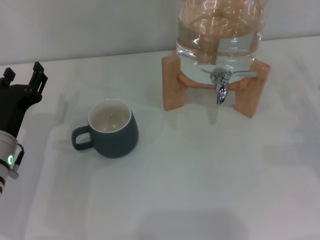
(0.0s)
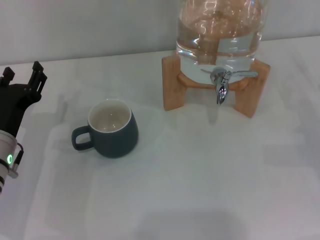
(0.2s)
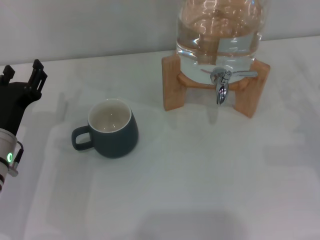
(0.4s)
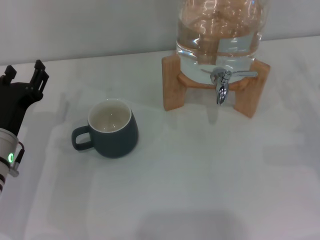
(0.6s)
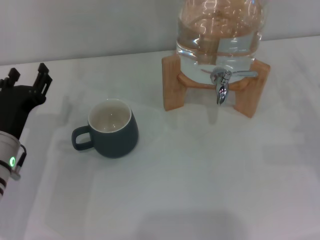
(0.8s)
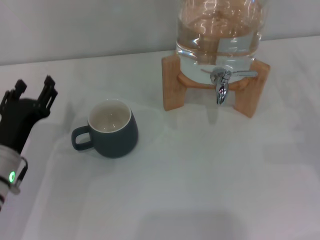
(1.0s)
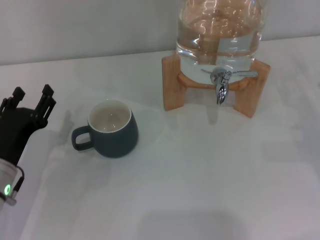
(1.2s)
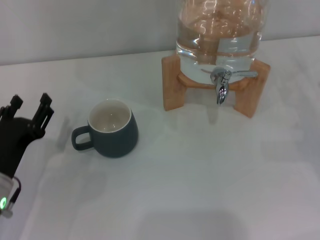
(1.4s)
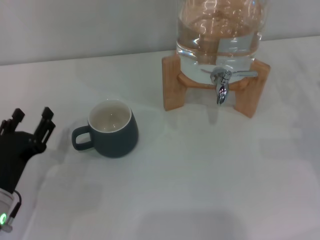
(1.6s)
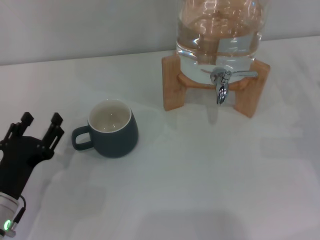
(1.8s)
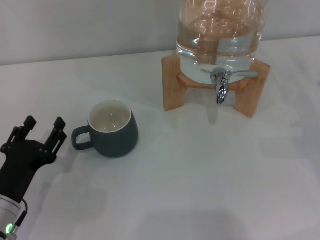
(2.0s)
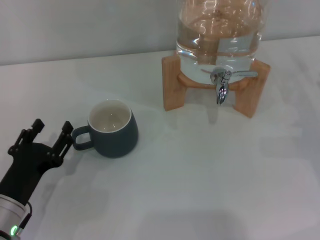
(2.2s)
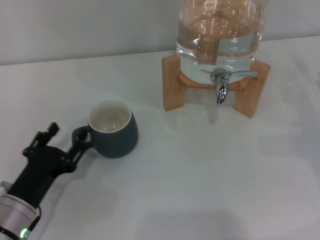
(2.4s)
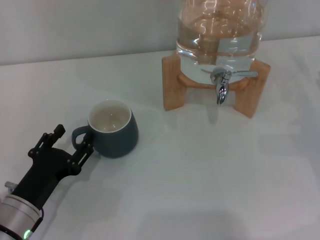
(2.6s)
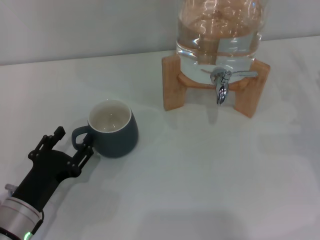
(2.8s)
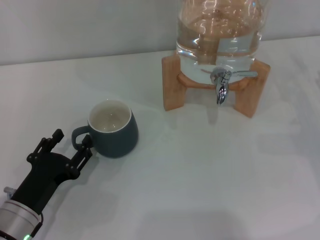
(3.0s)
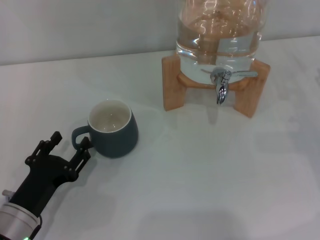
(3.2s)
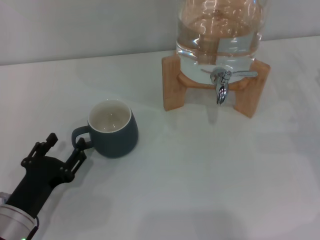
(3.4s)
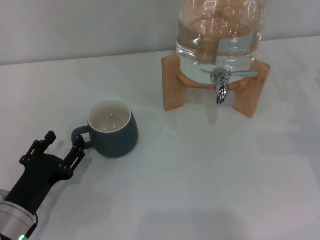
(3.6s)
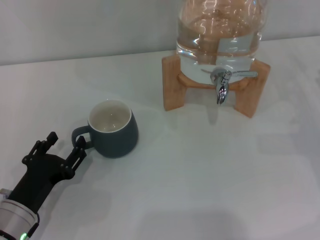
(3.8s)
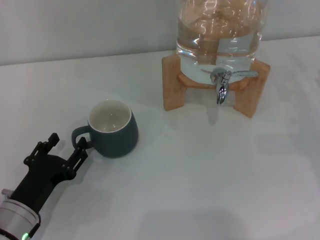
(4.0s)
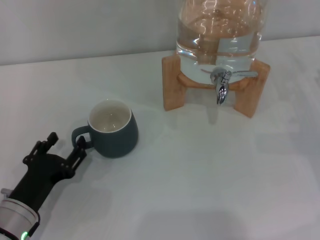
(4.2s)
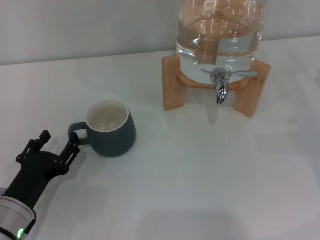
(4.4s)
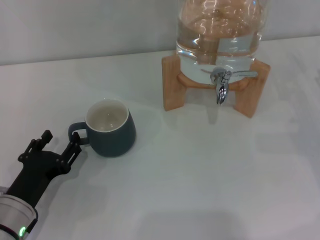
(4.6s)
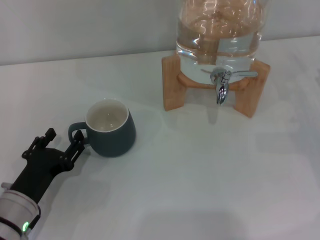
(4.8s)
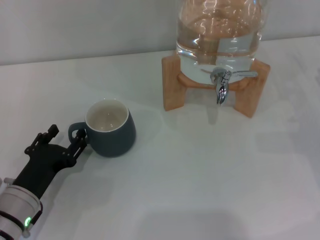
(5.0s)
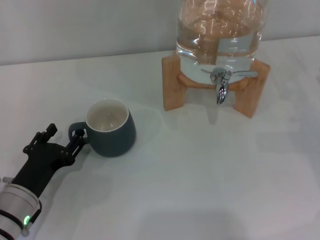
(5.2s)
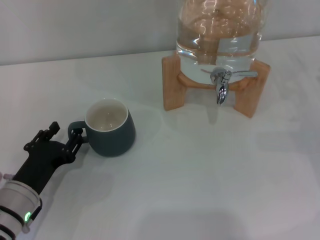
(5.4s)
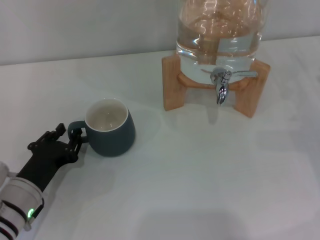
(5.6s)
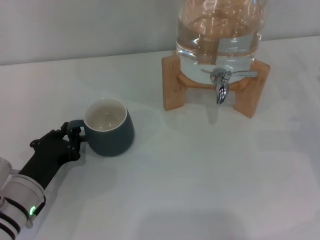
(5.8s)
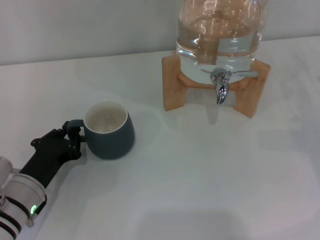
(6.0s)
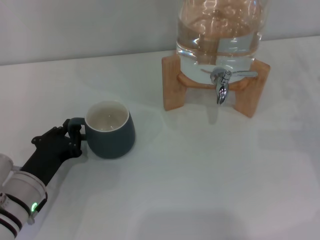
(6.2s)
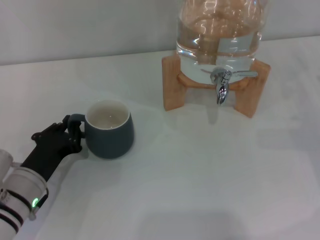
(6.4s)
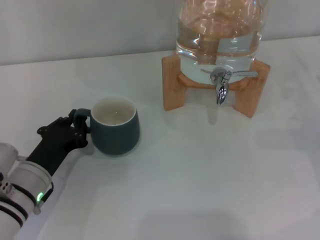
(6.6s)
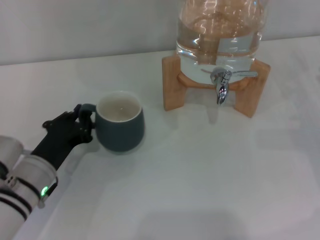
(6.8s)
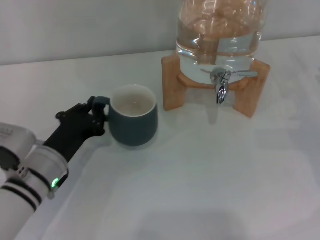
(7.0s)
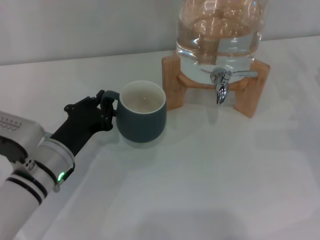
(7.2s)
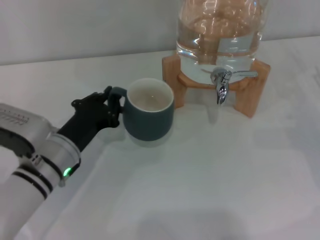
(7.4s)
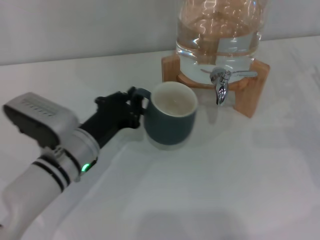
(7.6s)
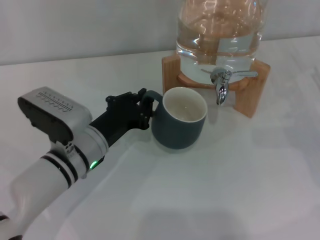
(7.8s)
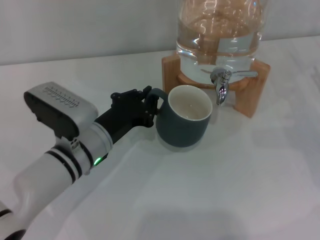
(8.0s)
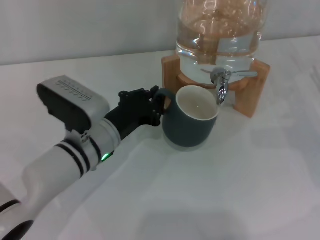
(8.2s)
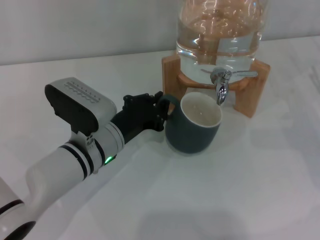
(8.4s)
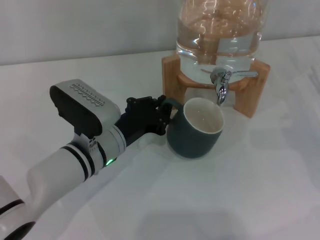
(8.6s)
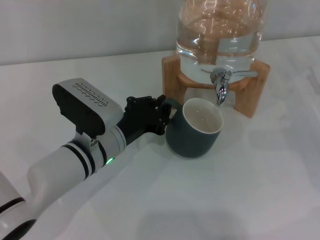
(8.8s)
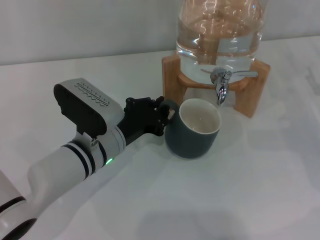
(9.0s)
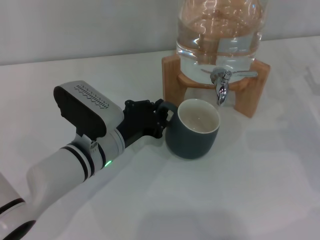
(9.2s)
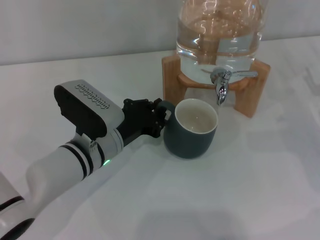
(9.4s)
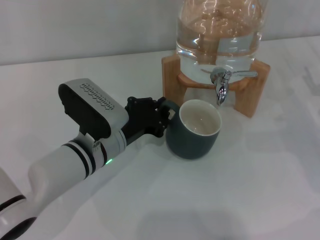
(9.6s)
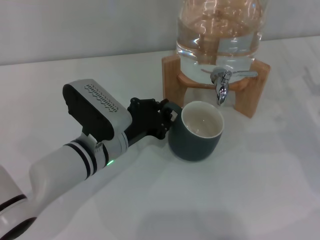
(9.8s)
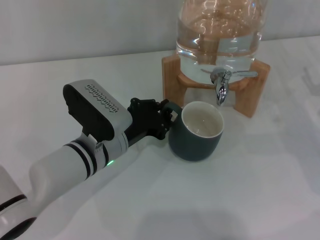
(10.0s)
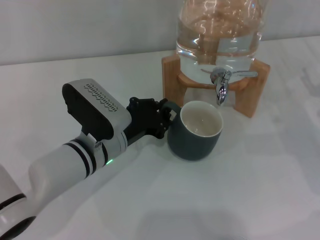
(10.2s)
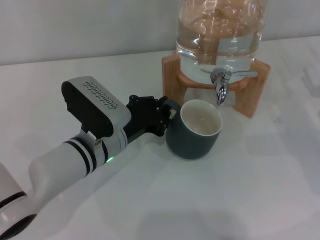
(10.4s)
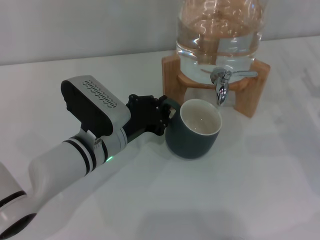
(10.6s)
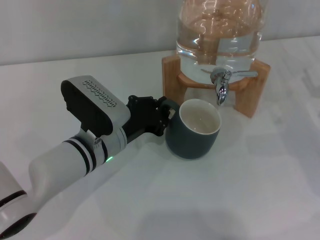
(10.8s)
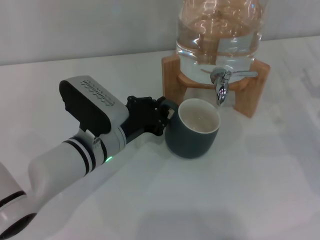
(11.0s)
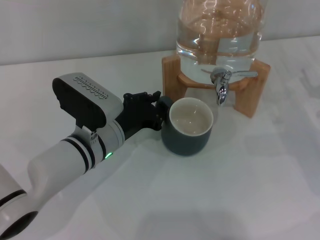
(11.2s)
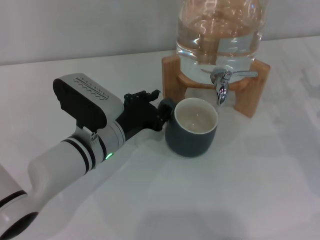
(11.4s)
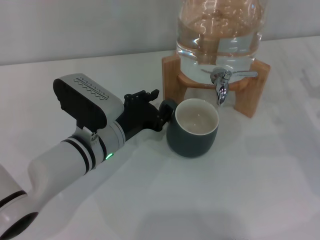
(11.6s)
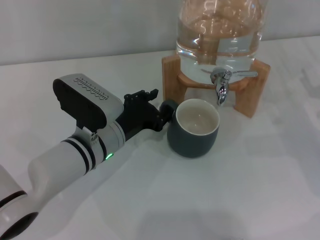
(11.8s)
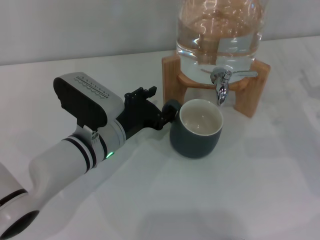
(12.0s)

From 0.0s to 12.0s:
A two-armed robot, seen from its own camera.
Task of the whole recording: the left gripper pick up the black cup and place it horizontally under the faucet, the right gripper turn on the faucet to fill the cup, and then turn off the faucet.
From 0.0s to 1.6s: The left gripper goes approximately 5 cm backward.
From 1.6s to 4.4s: The grippers stay close to where they were, moving slightly.
From 4.4s to 6.0s: The left gripper closes up.
From 6.0s to 7.6s: The left gripper goes about 10 cm to the right.
From 7.6s to 9.0s: There are only small adjustments of the grippers.
From 9.0s to 10.4s: The grippers move only a little.
From 10.4s to 12.0s: The left gripper opens.

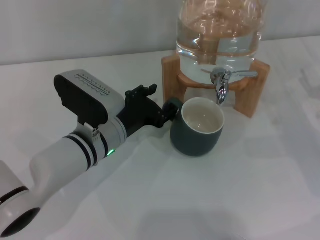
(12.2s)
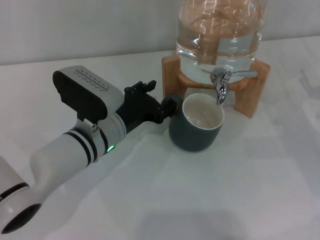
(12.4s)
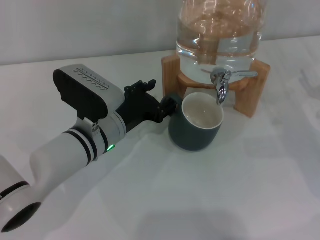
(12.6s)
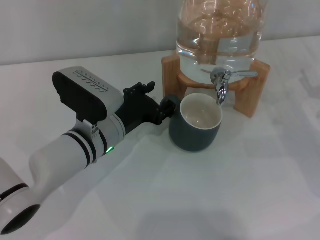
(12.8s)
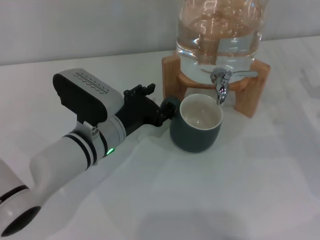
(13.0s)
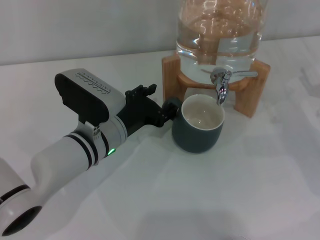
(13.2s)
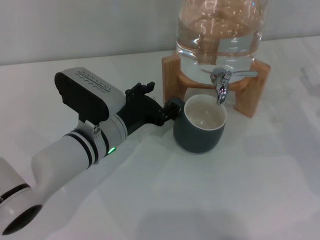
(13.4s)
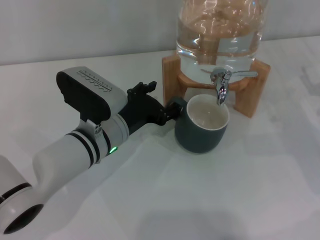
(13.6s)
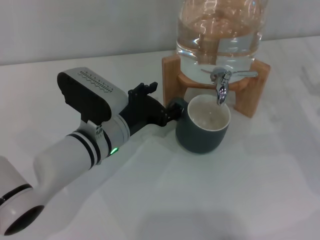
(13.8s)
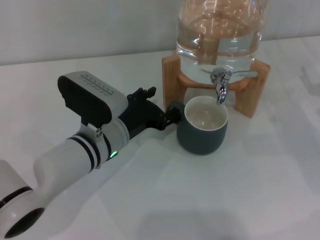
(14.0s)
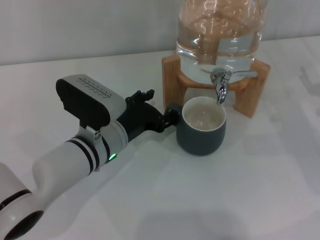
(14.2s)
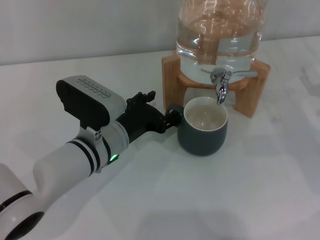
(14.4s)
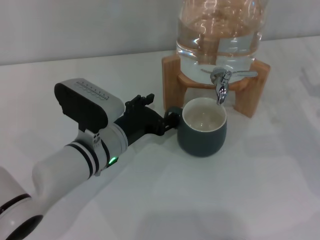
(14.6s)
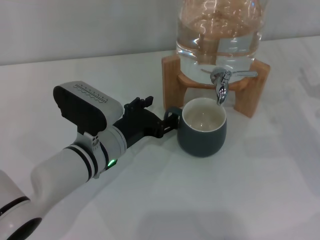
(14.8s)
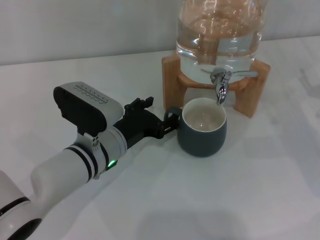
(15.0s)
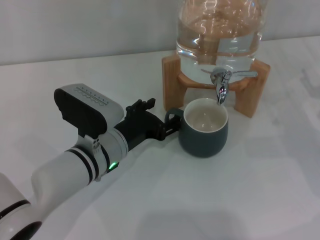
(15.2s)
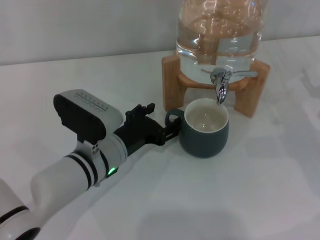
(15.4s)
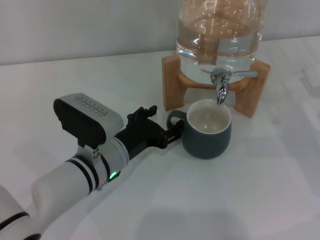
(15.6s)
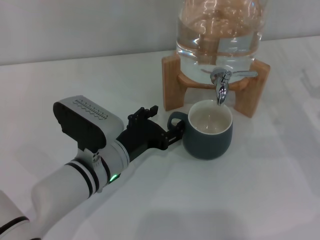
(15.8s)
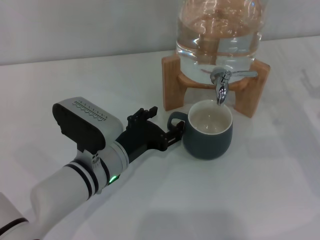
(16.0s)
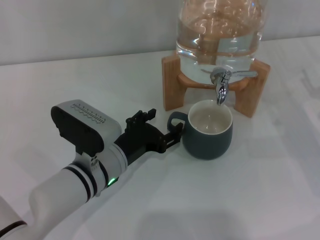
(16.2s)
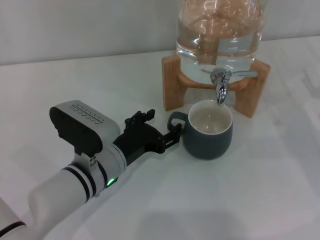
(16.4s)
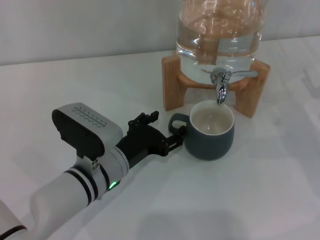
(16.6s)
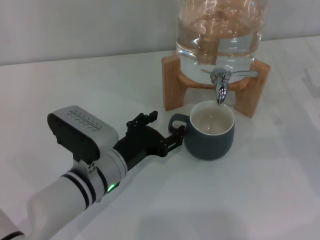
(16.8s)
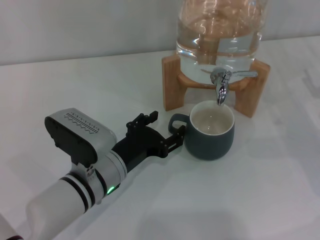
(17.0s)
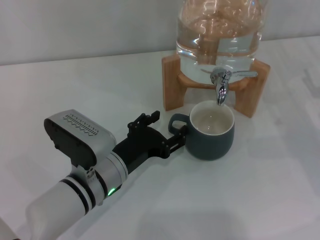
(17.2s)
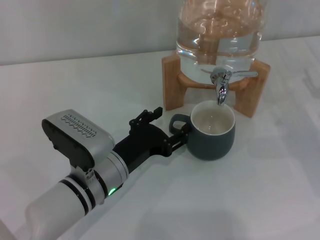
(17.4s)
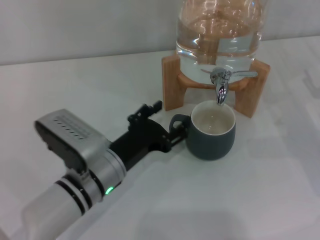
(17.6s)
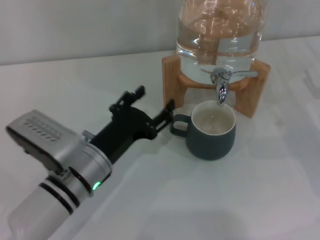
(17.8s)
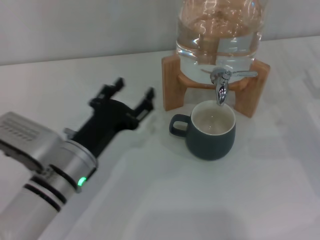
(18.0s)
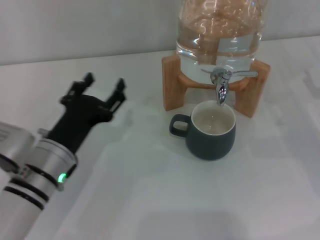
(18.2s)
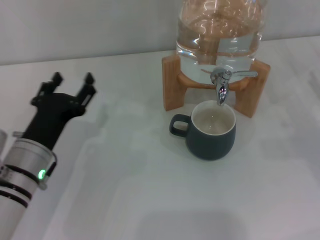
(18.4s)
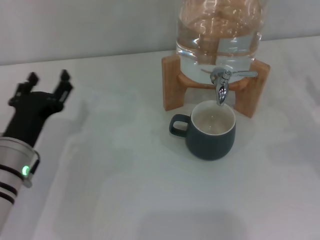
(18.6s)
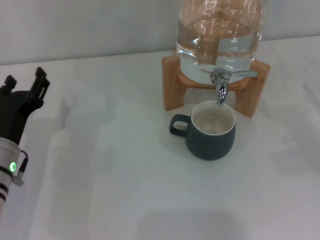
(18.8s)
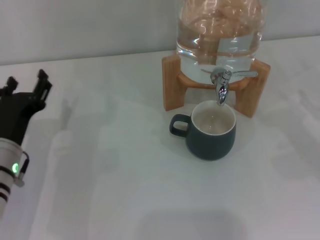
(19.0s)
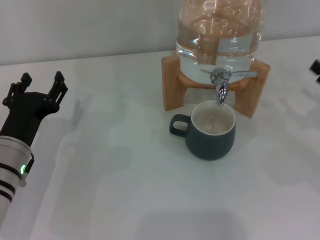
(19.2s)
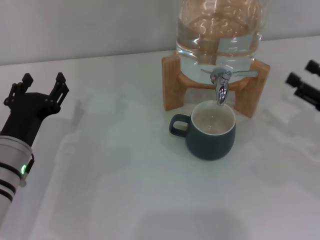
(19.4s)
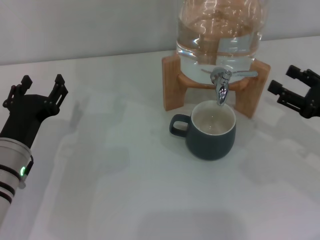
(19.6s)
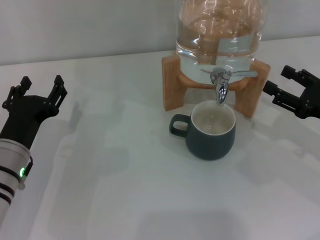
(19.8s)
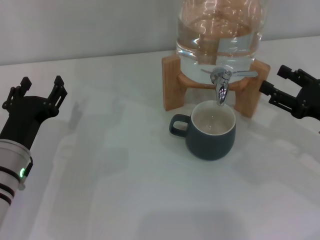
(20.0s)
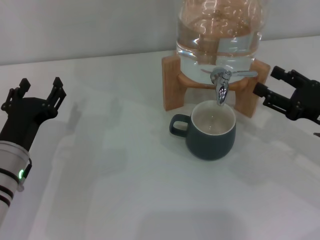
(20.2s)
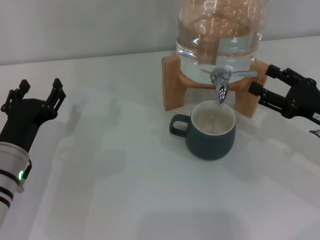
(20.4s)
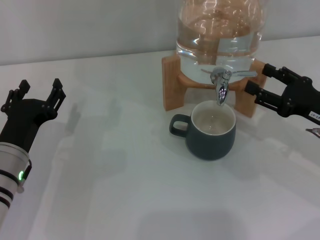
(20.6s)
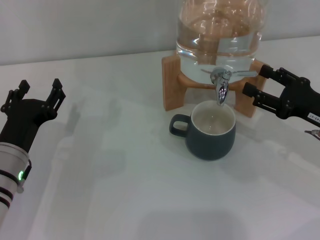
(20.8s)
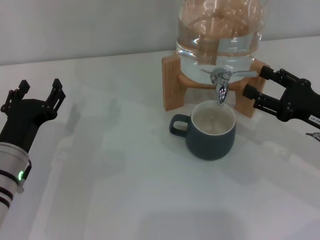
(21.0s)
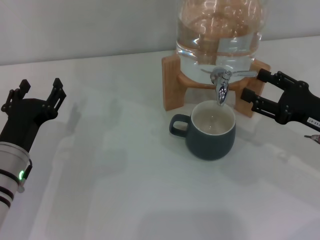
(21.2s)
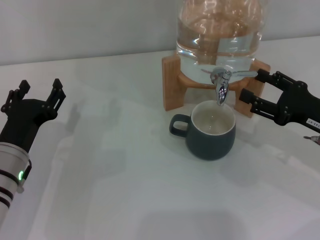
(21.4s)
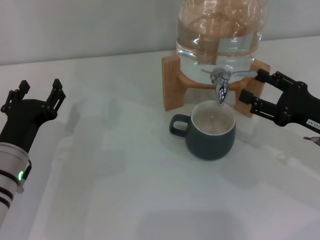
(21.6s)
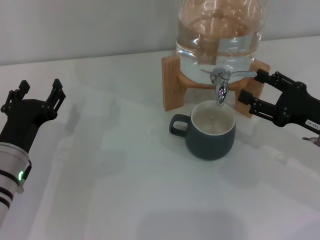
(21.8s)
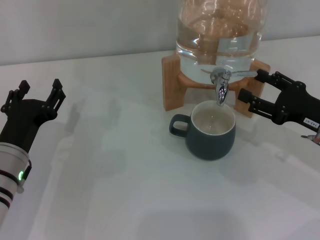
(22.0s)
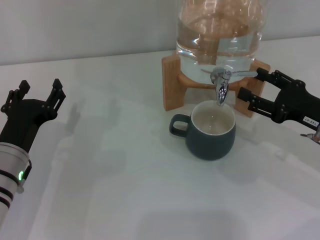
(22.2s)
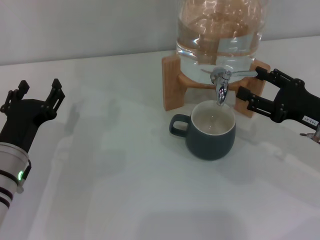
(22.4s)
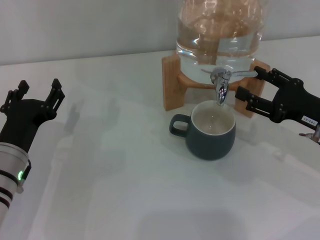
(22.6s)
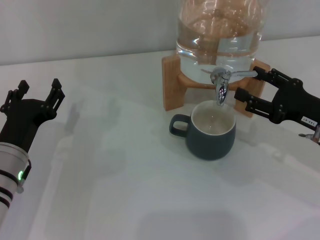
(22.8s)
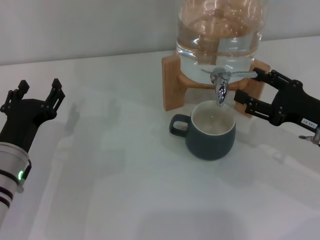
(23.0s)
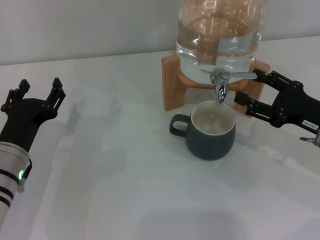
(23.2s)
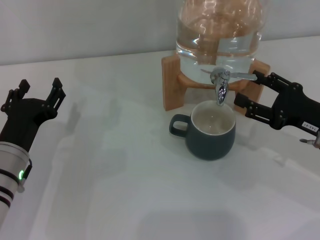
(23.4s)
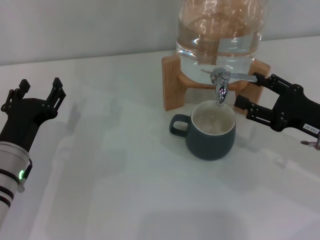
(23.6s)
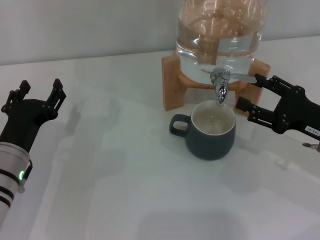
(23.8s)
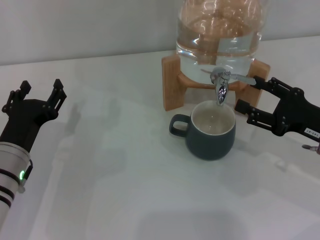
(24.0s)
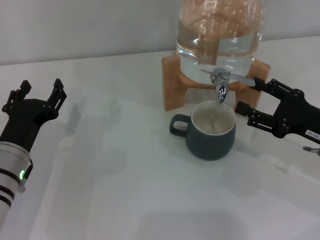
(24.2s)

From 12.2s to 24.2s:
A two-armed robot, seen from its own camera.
Task of the whole recording: the left gripper pick up the black cup and place it horizontally under the faucet, the right gripper turn on the faucet to fill the cup, and then turn off the faucet.
Step, from 12.2s to 17.6s: Move the cup beneath the water dispenser nozzle with the left gripper.
From 12.2s to 13.8s: Both grippers stay put.
From 13.8s to 16.6s: The grippers stay close to where they were, moving slightly.
From 16.6s to 18.2s: The left gripper travels to the left by some 5 cm.
From 18.2s to 19.8s: The left gripper moves to the left, some 5 cm.
From 19.8s to 21.2s: The grippers stay close to where they were, moving slightly.
From 21.2s to 22.6s: Both grippers stay about where they are.
From 22.6s to 24.2s: The grippers stay close to where they were, moving slightly.
